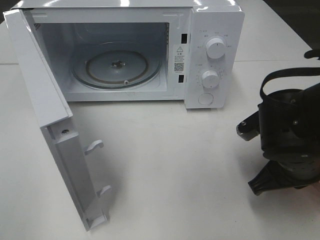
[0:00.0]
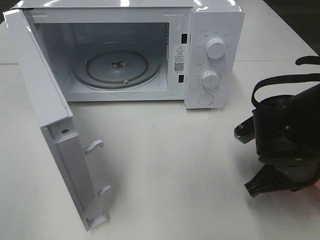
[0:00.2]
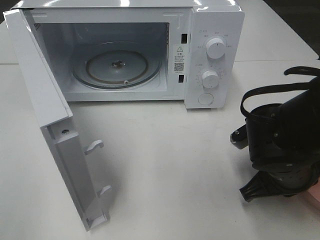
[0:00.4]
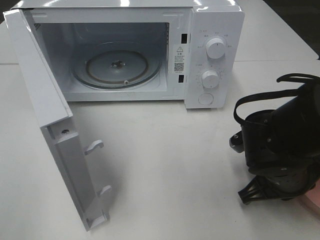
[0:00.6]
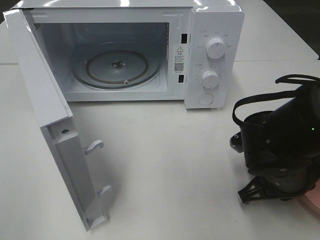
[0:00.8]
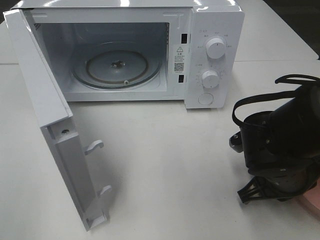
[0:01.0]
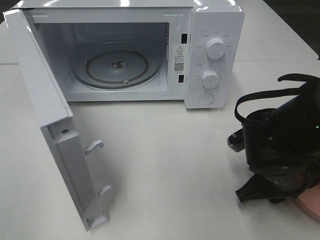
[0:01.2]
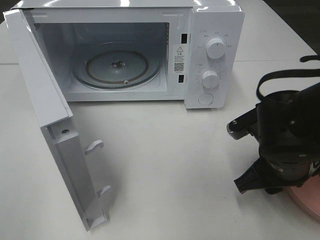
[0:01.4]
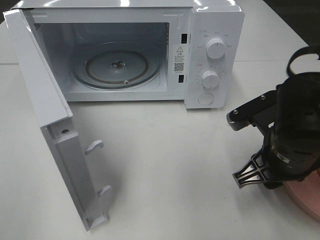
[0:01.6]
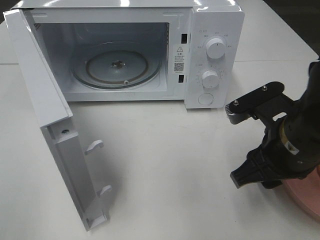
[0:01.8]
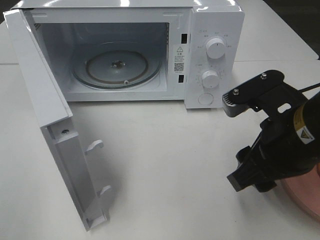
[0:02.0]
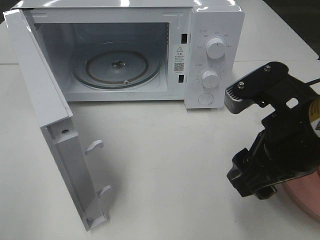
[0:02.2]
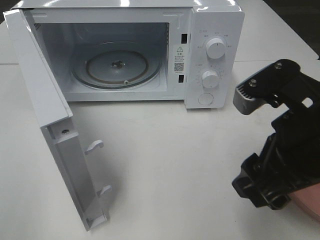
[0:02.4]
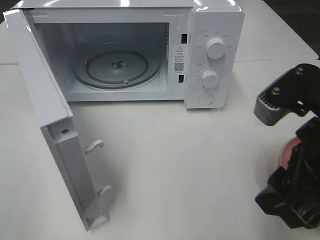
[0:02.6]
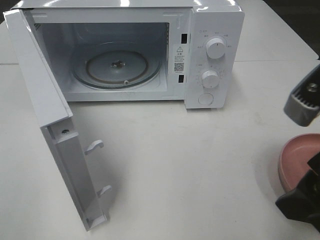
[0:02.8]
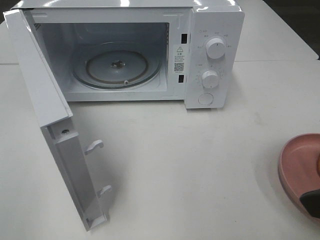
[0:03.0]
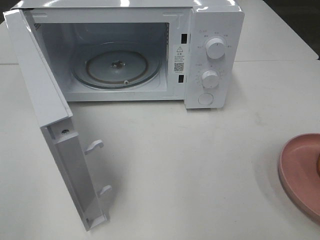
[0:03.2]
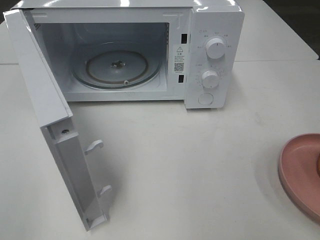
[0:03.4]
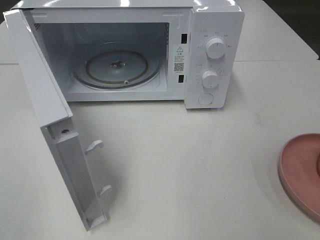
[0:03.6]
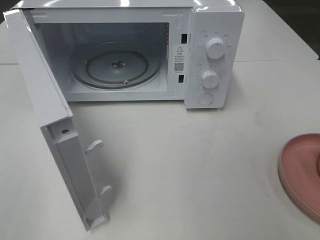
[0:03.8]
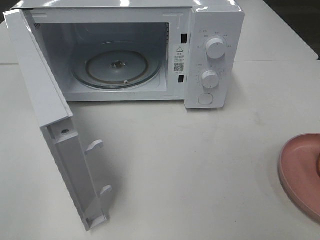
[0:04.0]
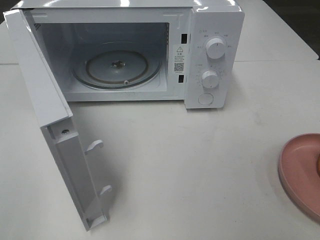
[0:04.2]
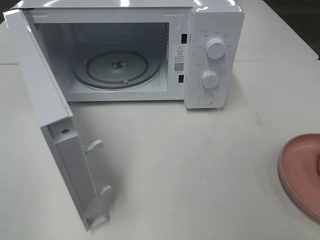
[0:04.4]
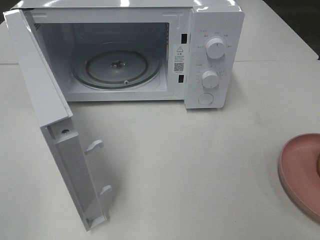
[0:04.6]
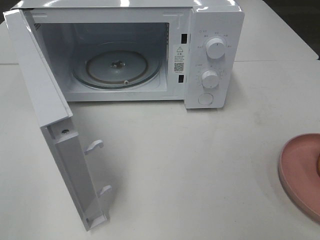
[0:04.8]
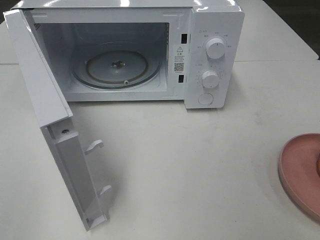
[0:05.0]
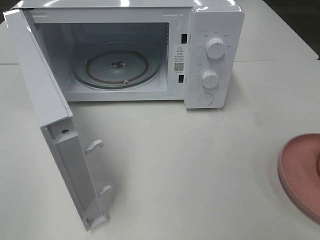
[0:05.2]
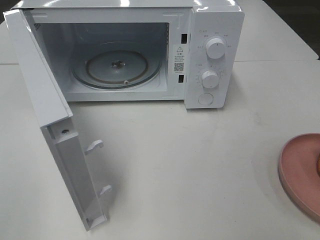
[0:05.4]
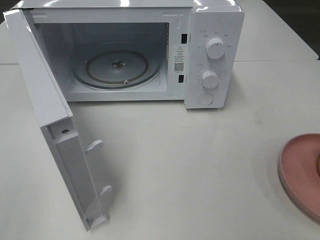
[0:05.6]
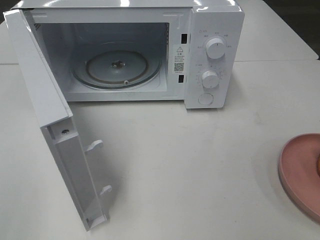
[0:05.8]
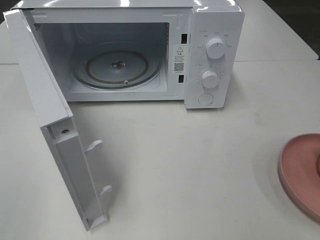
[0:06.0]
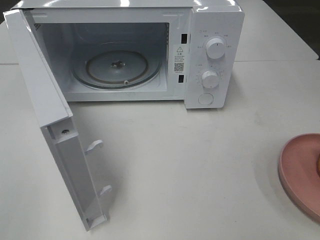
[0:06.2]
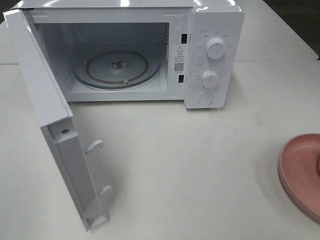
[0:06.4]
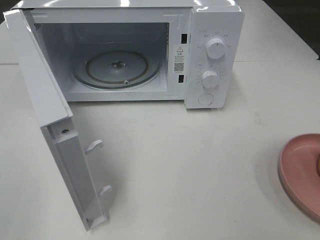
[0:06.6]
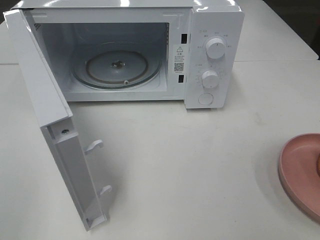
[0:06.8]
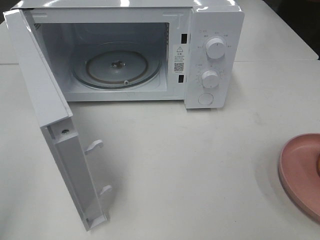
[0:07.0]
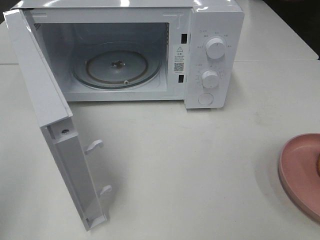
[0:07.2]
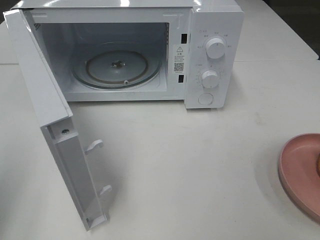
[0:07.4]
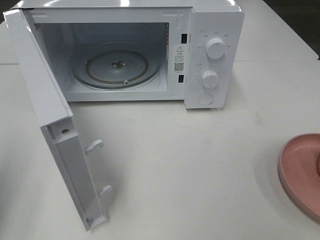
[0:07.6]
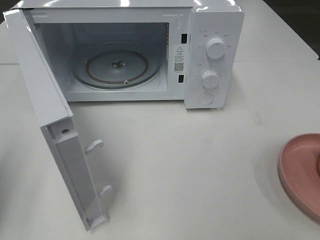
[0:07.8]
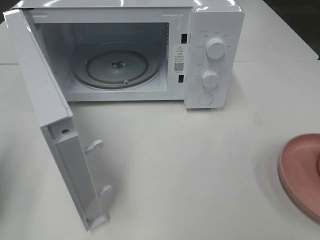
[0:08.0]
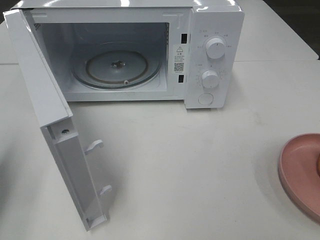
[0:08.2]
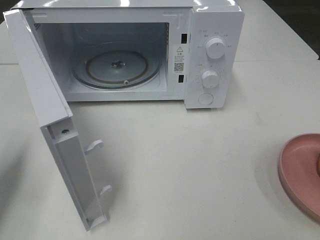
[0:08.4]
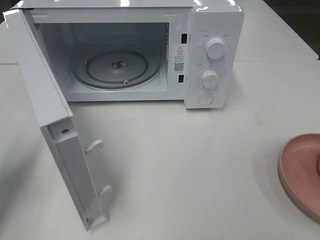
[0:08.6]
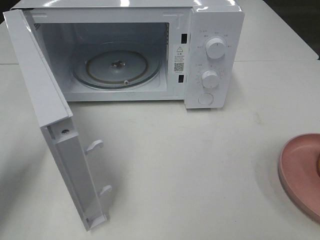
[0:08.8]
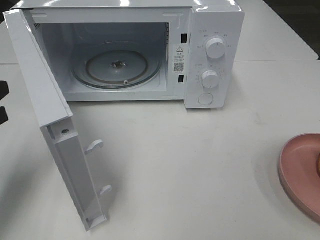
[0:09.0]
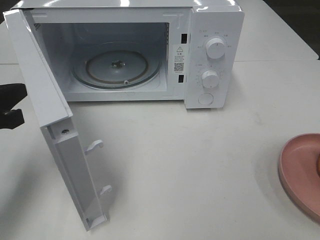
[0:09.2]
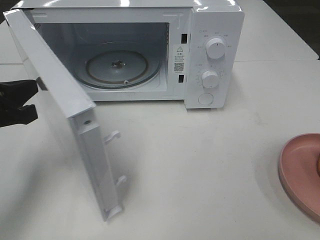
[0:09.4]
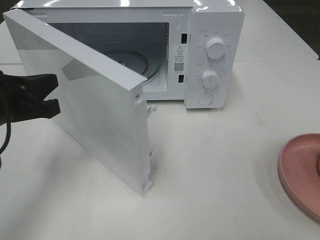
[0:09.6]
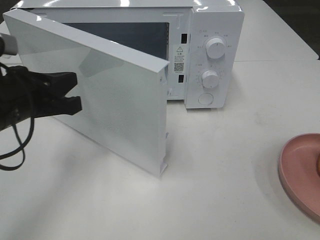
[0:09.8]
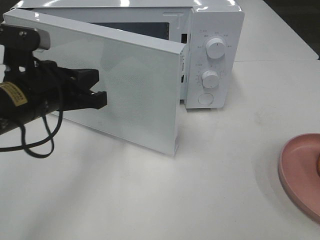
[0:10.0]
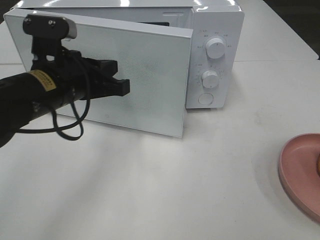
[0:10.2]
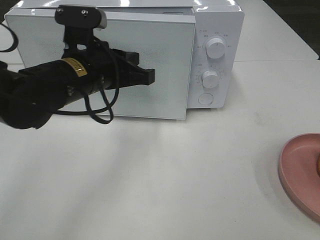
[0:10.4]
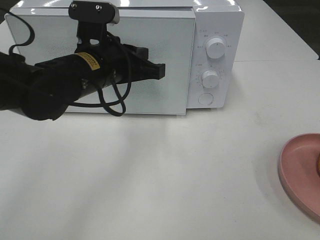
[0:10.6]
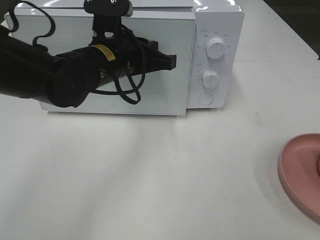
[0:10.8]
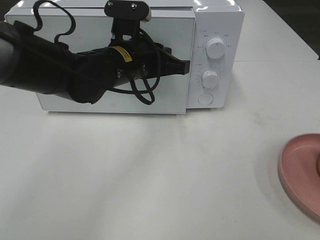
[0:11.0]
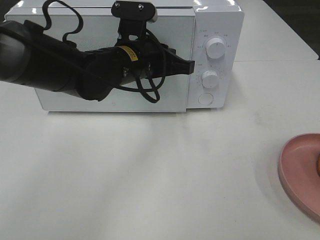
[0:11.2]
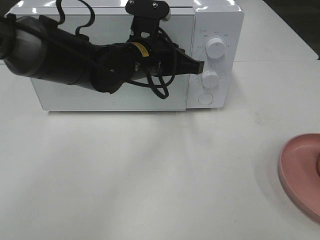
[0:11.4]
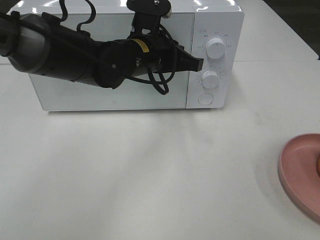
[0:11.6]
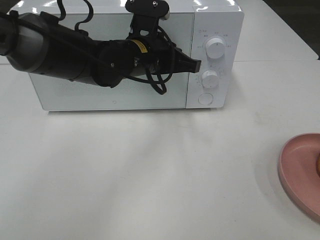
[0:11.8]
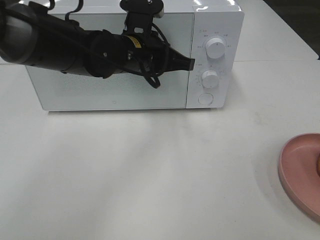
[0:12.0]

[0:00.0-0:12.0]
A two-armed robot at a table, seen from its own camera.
Task of the whole recording: Heat the burger.
0:00.0 to 0:01.6: The right gripper opens its fingers.
0:01.6 to 0:03.0: The right gripper travels upward and backward by about 20 cm.
0:03.0 to 0:04.4: The right gripper travels backward and to the right by roughly 10 cm.
0:04.4 to 0:06.0: The two grippers keep their place.
0:06.0 to 0:07.6: The left gripper shifts some 15 cm forward, and closes.
0:07.6 to 0:09.0: The left gripper travels forward and downward by roughly 10 cm.
0:09.0 to 0:10.4: The left gripper heads to the right and forward, covering approximately 20 cm.
0:10.4 to 0:12.0: The left gripper shifts approximately 10 cm forward and to the right.

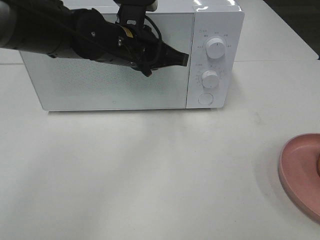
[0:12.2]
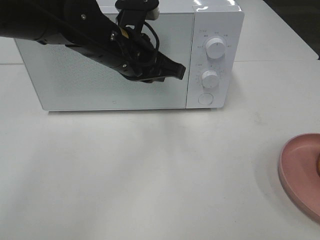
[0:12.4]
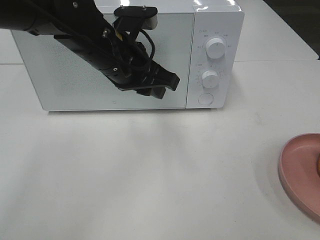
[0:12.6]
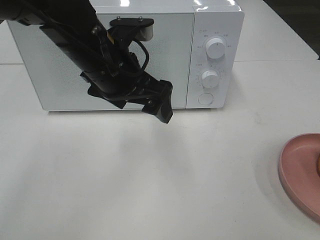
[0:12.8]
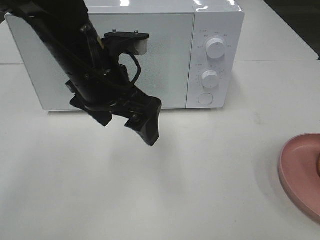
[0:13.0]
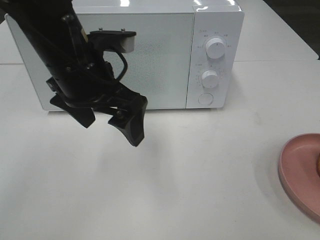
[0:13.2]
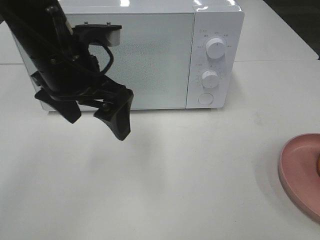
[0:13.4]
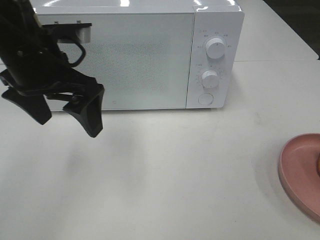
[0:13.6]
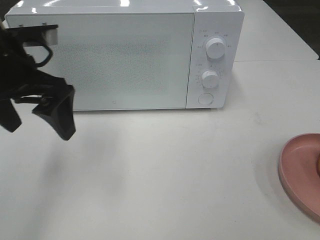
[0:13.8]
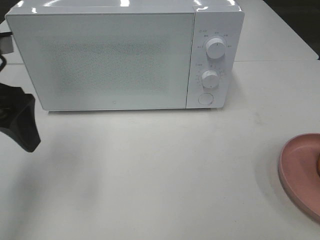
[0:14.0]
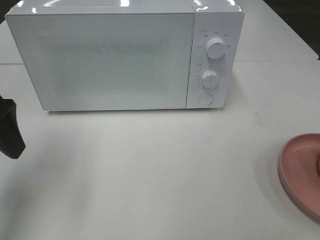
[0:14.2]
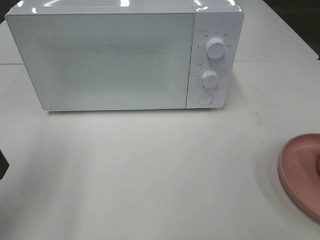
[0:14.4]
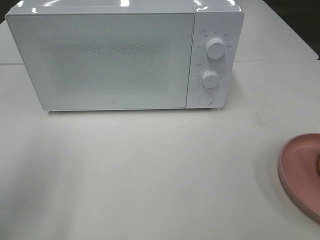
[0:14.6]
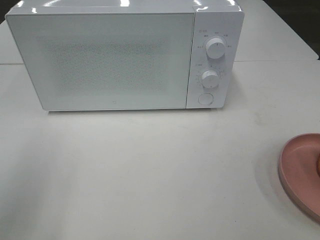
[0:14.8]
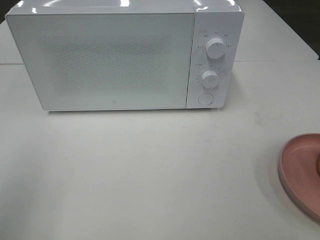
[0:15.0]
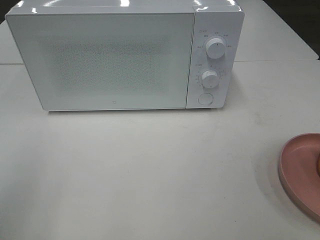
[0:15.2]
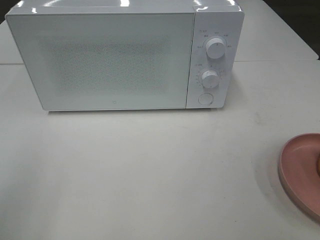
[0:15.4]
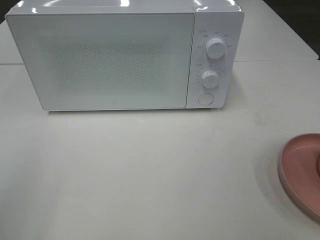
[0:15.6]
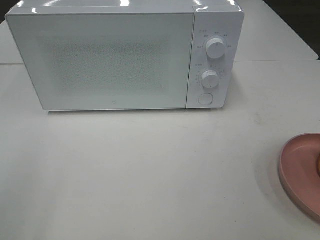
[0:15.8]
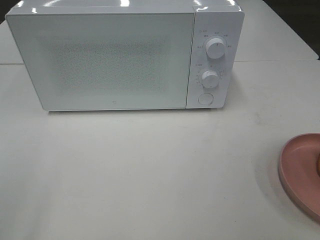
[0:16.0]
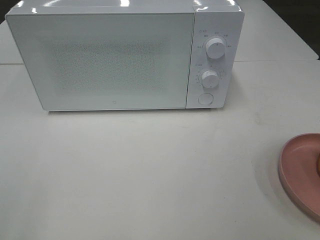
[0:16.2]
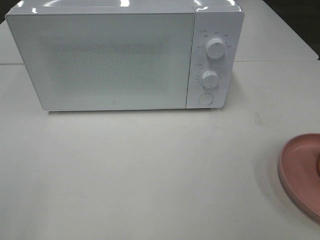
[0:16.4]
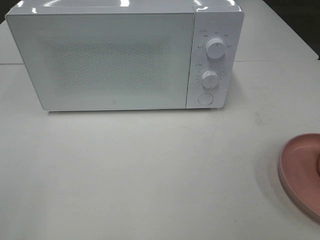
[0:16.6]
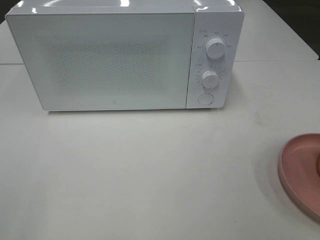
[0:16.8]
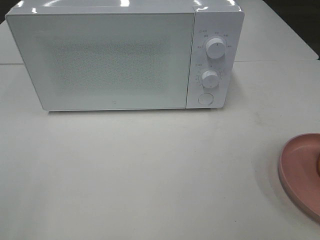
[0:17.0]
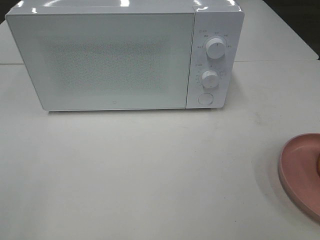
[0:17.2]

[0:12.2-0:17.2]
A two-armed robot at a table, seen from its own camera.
Task of the whole recording: Heat the burger.
0:12.2 to 0:13.8: The left gripper is displaced to the left and backward by some 15 cm, and opens up.
0:13.8 to 0:15.6: The left gripper moves backward and to the left, approximately 25 cm.
